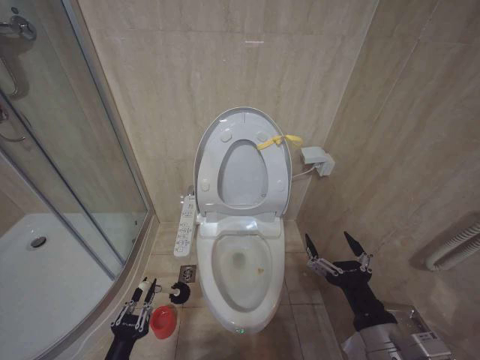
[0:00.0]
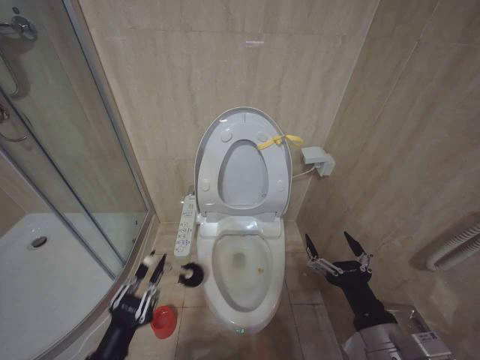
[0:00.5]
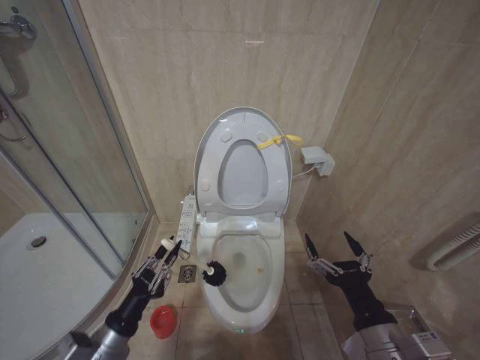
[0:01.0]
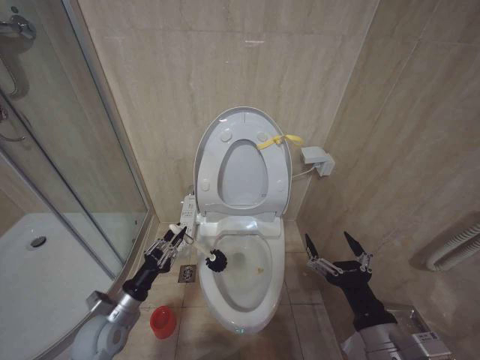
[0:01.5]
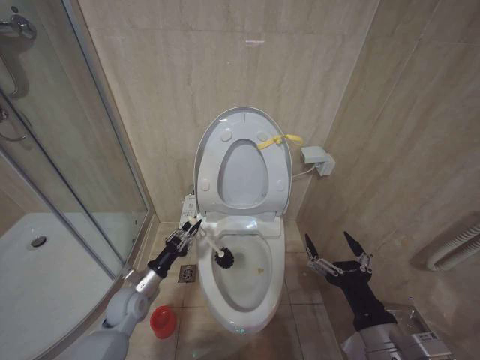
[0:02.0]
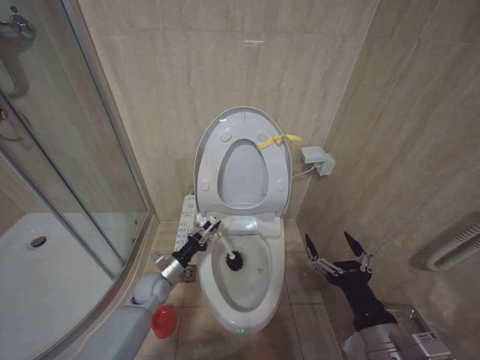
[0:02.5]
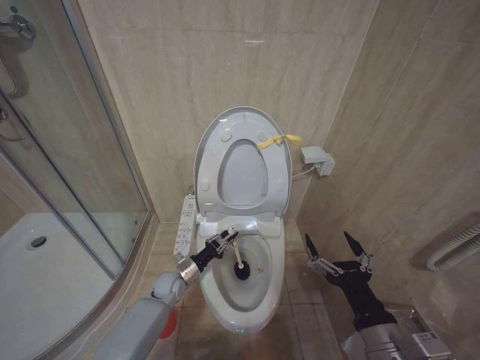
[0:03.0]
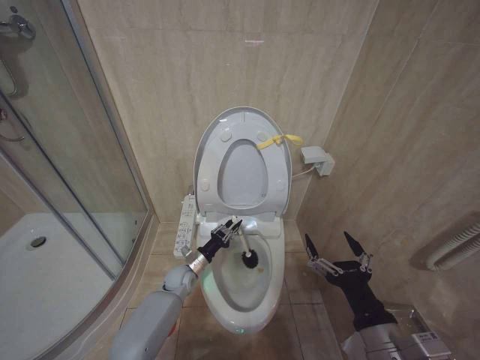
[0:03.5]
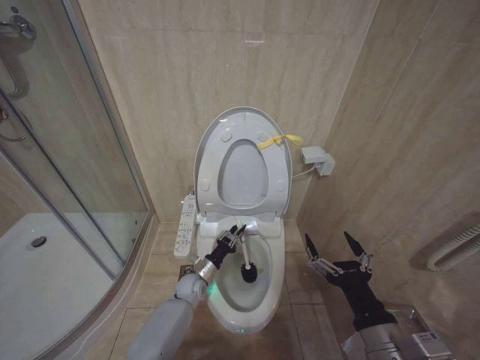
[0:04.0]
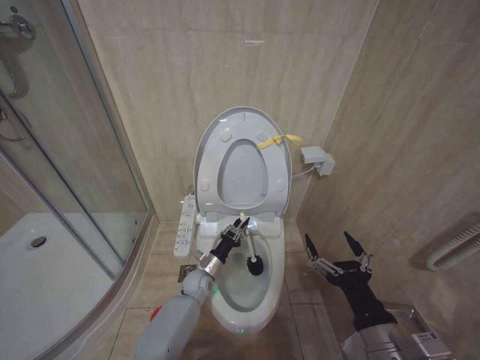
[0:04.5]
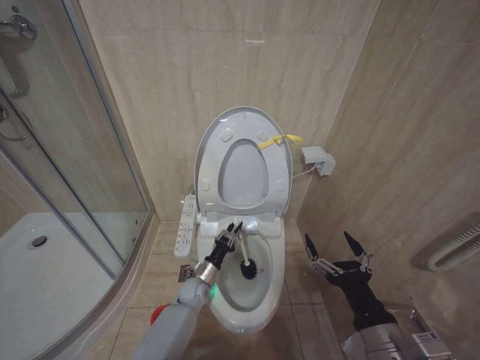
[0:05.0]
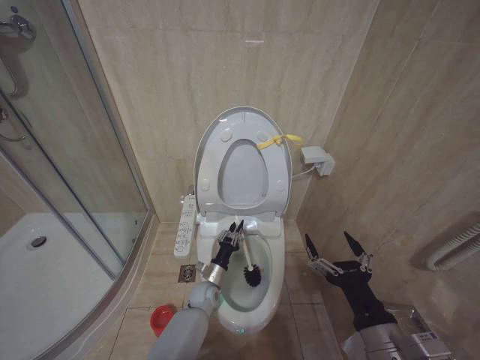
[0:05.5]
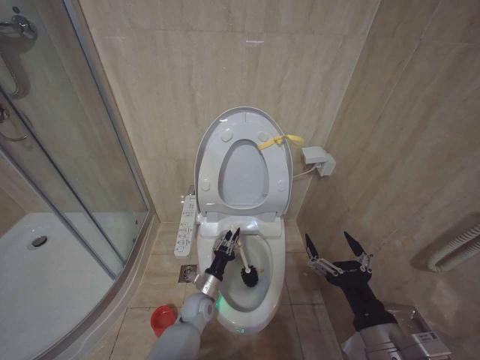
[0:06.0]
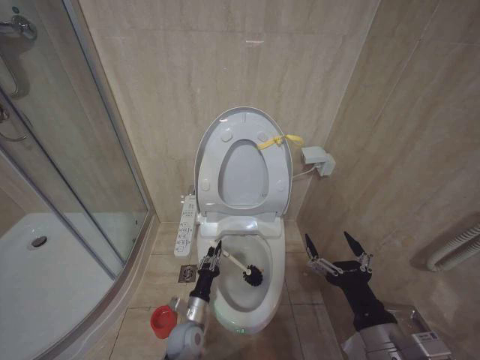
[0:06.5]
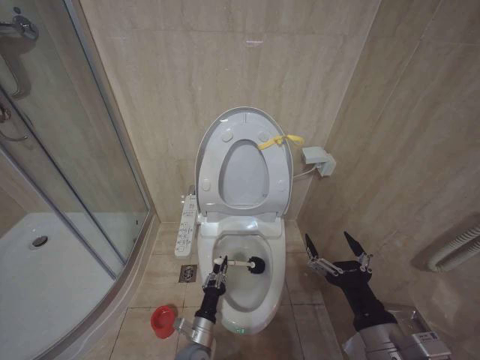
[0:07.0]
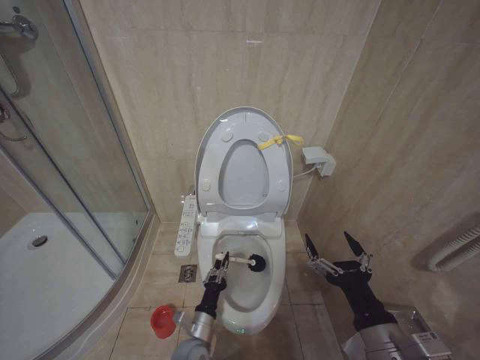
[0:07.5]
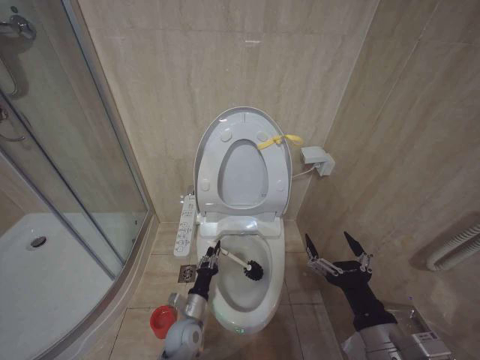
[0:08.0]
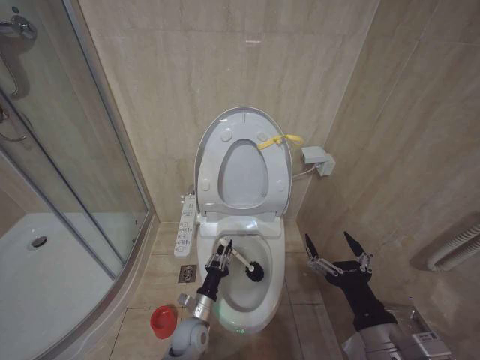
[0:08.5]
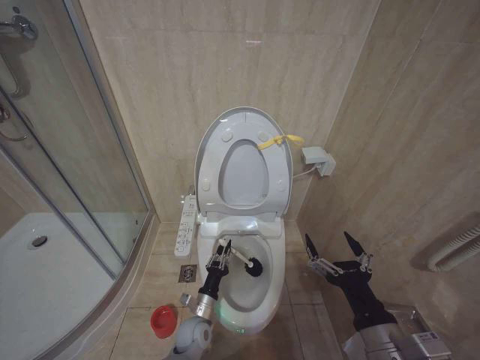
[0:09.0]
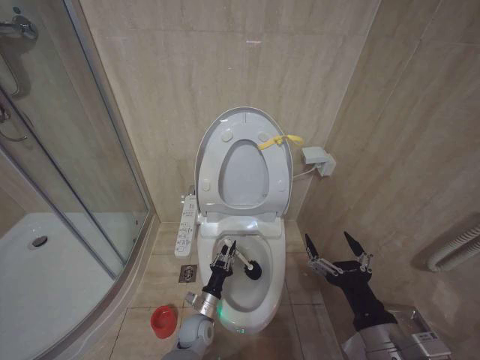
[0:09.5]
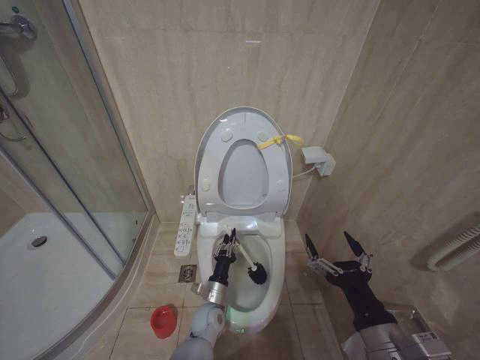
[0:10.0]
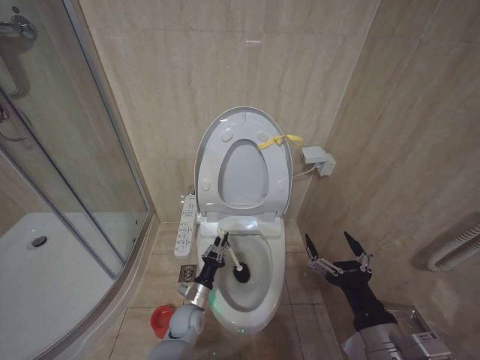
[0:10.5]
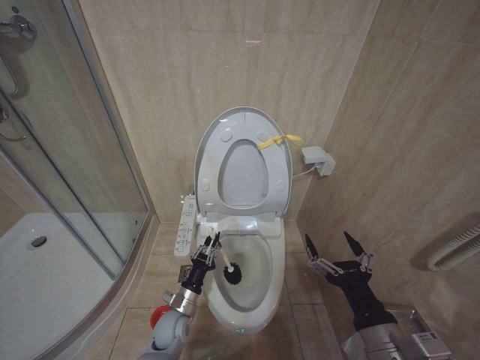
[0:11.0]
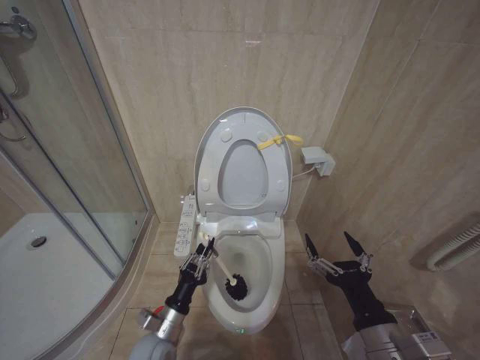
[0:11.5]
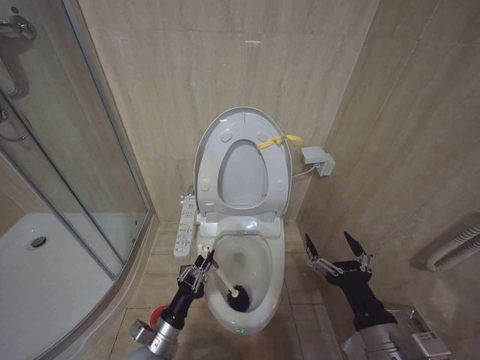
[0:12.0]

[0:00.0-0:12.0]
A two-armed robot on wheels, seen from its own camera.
Task of the whole recording: Open the toilet lid, clean the toilet bowl with a toilet brush, close the toilet lid, and flush.
0:00.0 to 0:02.0: The left gripper heads forward, covering about 20 cm.
0:02.0 to 0:04.0: The left gripper moves to the right, forward and downward, about 20 cm.
0:04.0 to 0:06.0: The left gripper moves approximately 5 cm.
0:06.0 to 0:08.0: The left gripper shifts roughly 10 cm backward.
0:08.0 to 0:10.0: The left gripper goes some 5 cm to the right.
0:10.0 to 0:12.0: The left gripper heads to the left, backward and upward, covering some 20 cm.

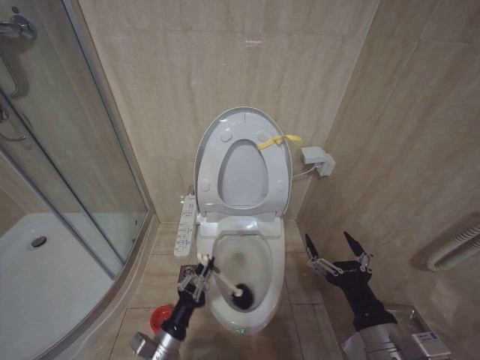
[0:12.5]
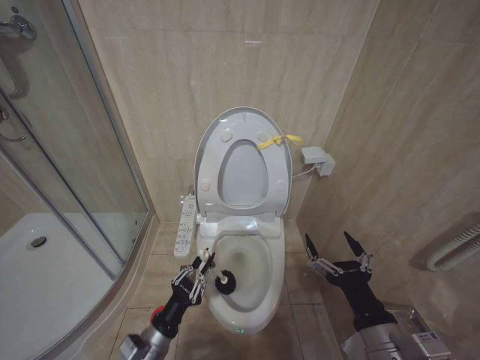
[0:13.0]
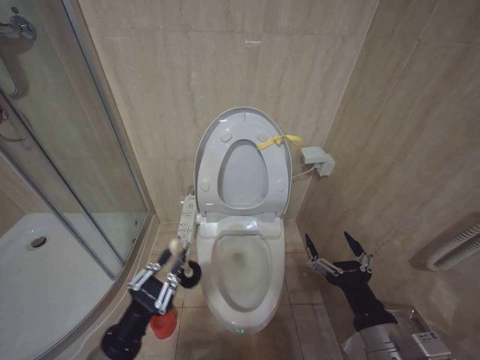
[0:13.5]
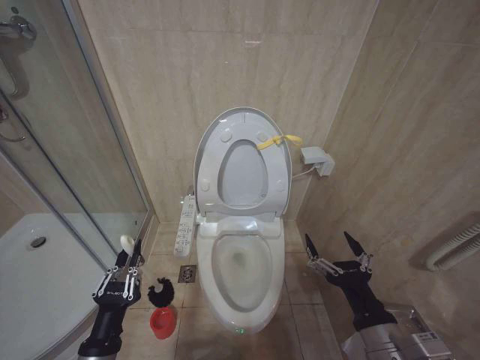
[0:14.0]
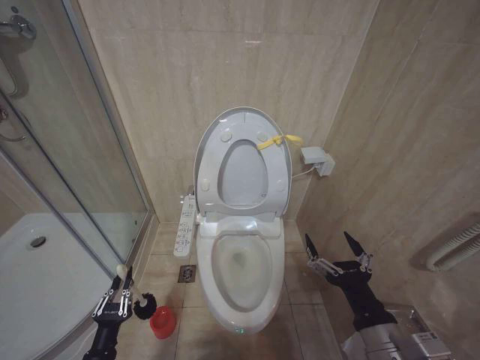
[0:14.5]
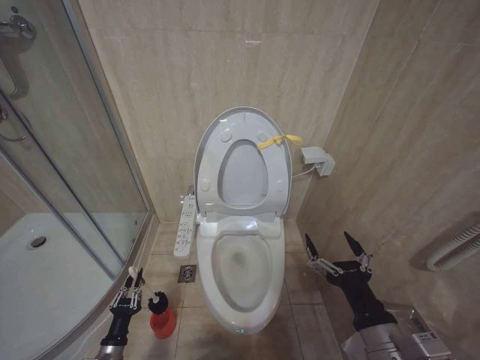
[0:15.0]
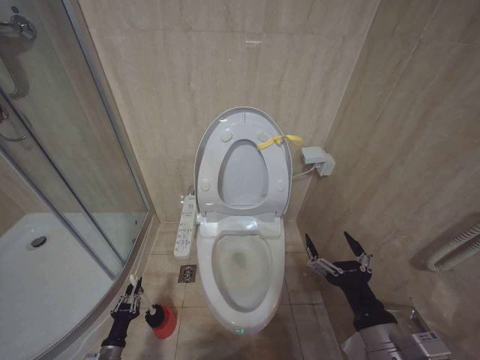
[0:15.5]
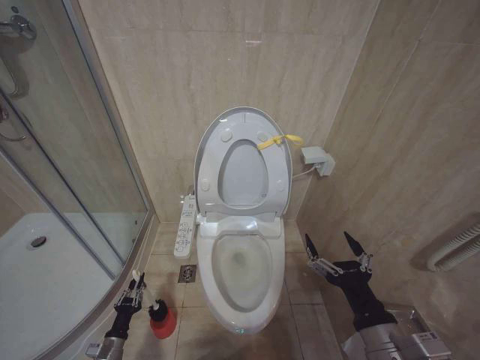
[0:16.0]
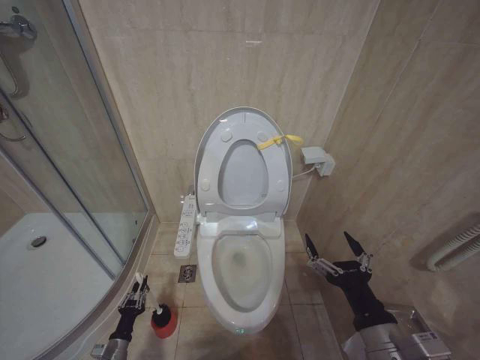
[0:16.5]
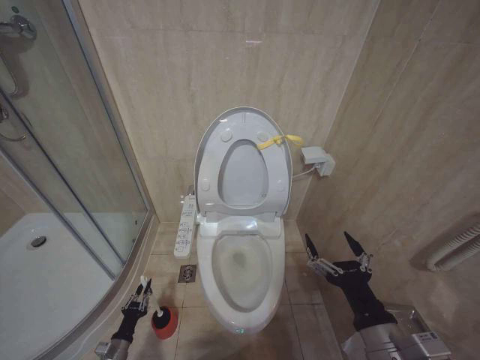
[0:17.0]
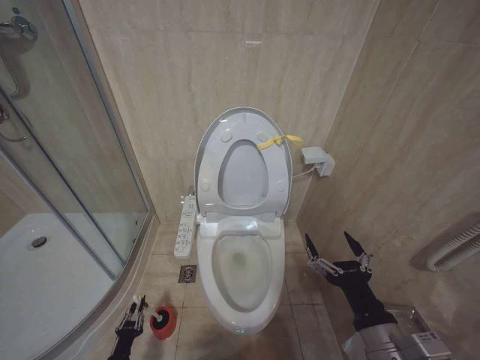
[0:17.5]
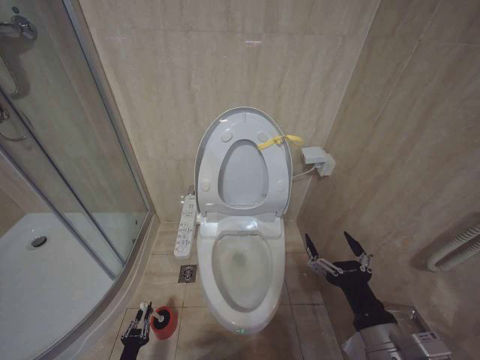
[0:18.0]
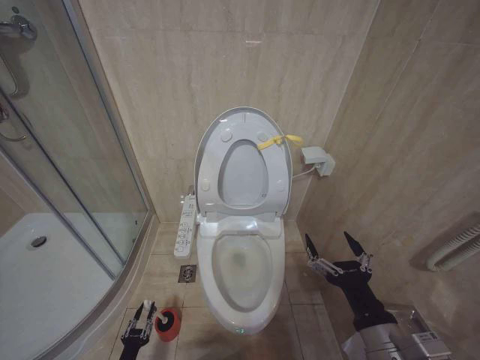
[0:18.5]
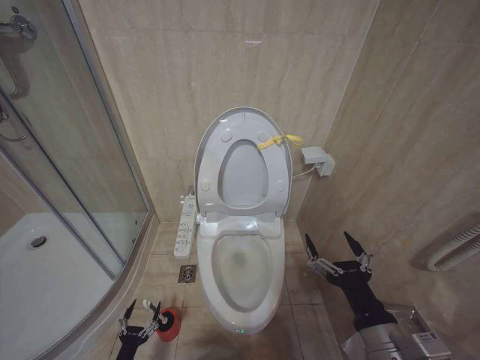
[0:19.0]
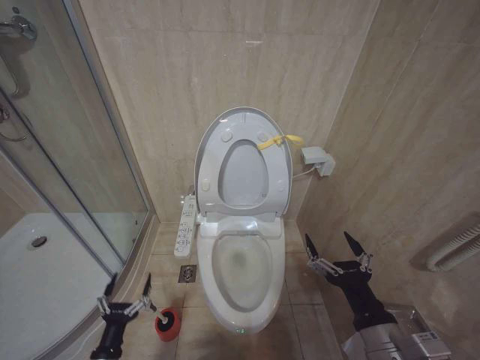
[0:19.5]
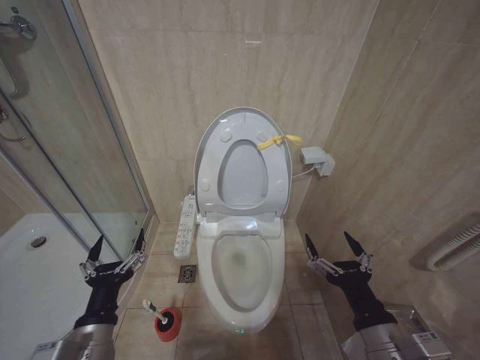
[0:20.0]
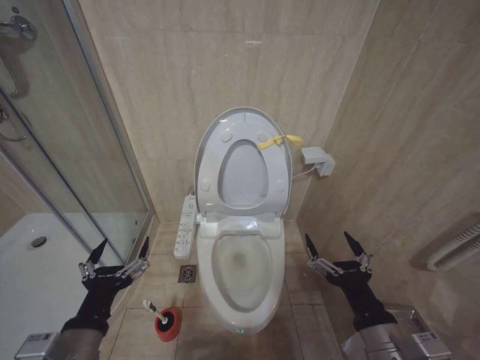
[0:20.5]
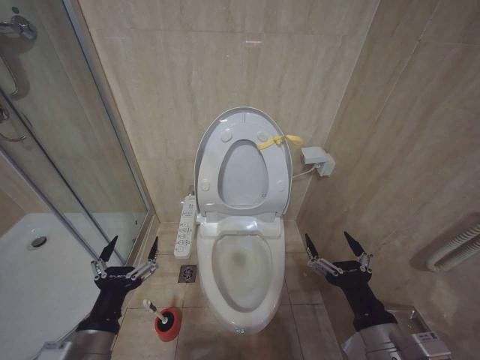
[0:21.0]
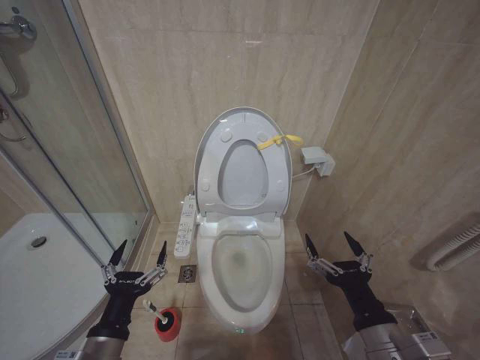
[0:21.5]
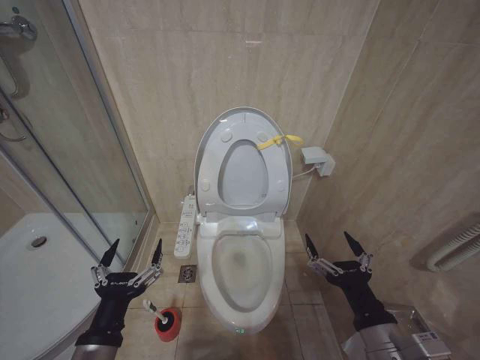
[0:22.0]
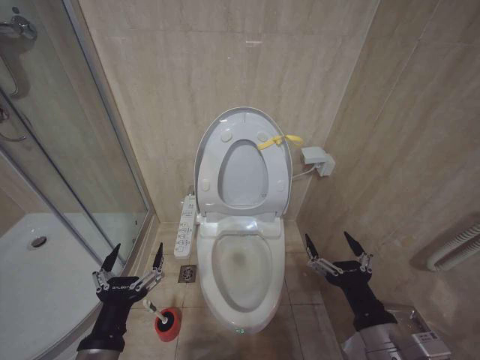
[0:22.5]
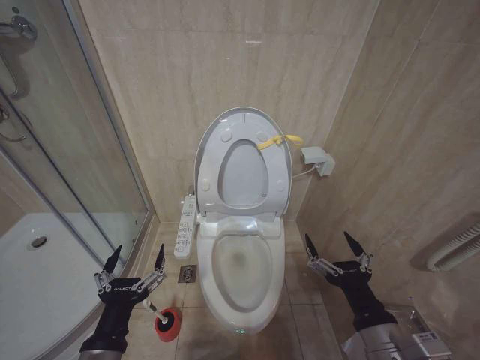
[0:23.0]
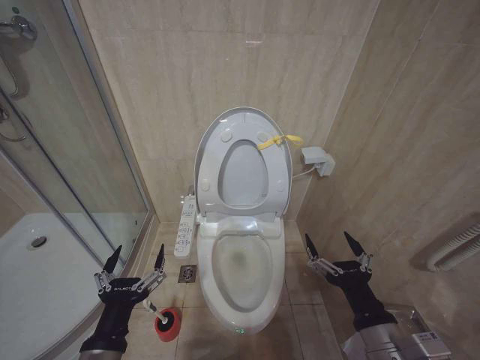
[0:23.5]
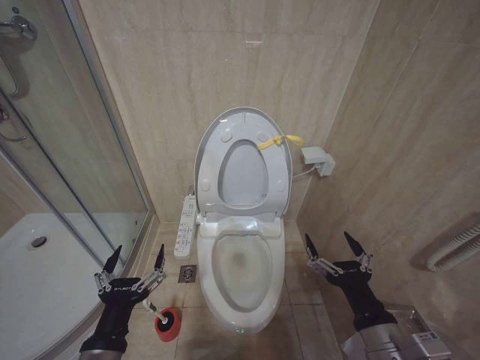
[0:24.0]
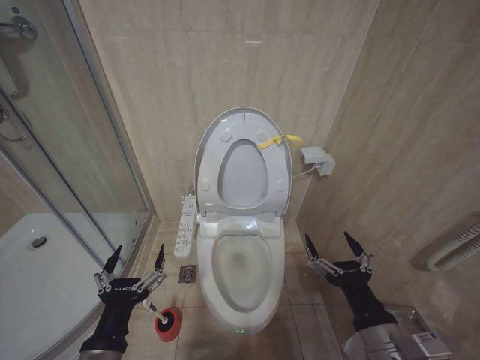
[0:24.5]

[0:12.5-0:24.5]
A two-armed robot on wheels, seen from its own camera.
Task of the whole recording: Open the toilet lid, clean the toilet bowl with a toilet brush, close the toilet lid, and flush.
0:12.5 to 0:14.5: The left gripper travels to the left by some 15 cm, and reaches approximately 10 cm upward, then returns.
0:14.5 to 0:16.5: The left gripper shifts about 20 cm downward and forward.
0:16.5 to 0:18.5: The left gripper moves backward, roughly 5 cm.
0:18.5 to 0:20.5: The left gripper goes roughly 40 cm upward, and opens.
0:22.5 to 0:24.5: The two grippers keep their place.

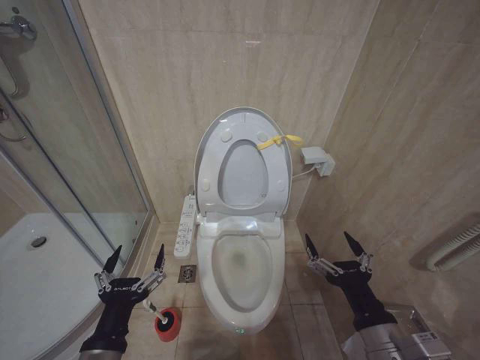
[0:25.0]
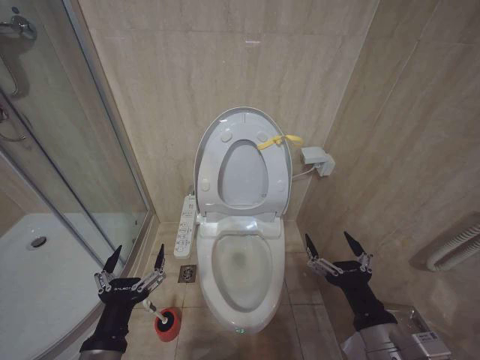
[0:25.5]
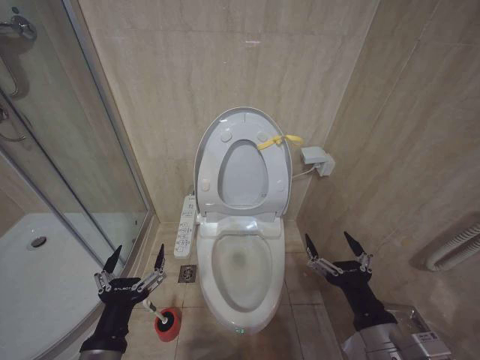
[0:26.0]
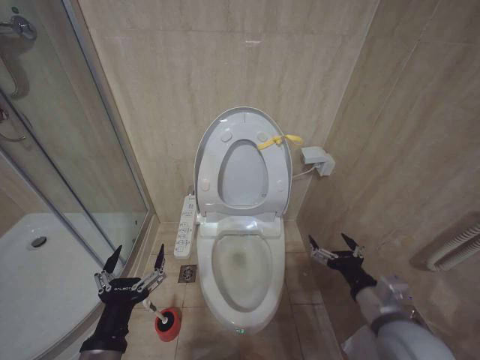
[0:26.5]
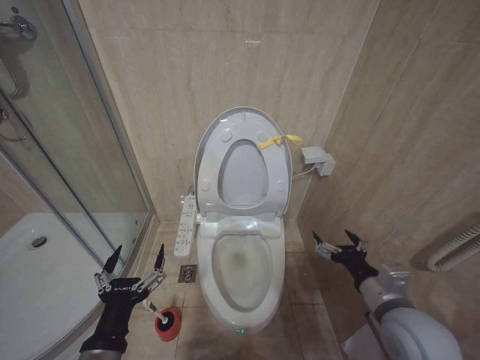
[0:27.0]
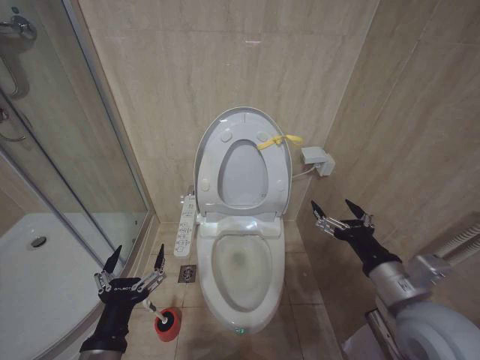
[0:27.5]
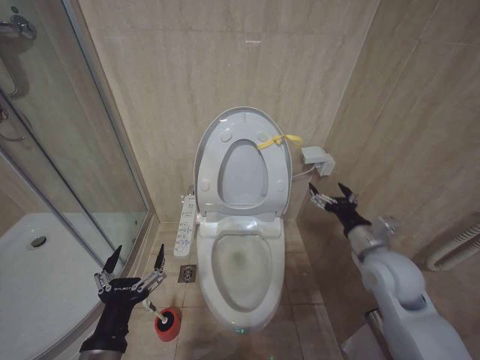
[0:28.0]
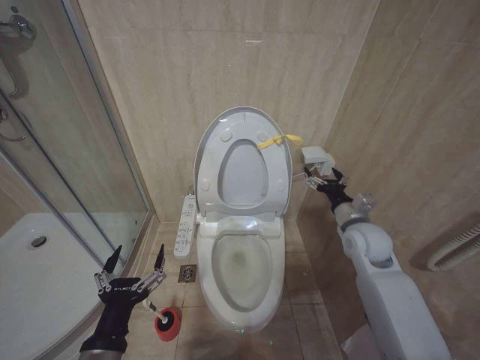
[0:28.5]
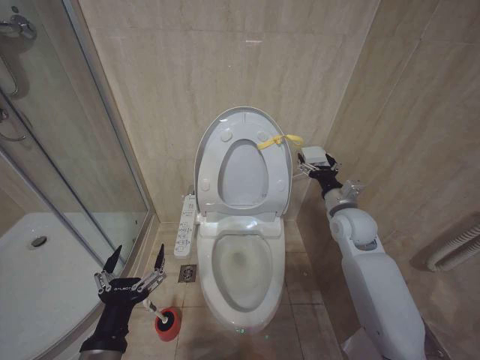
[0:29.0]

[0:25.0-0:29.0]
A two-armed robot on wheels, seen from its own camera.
Task of the whole recording: Open the toilet lid, clean the toilet bowl with a toilet brush, close the toilet lid, and flush.
0:25.0 to 0:27.0: The right gripper is displaced forward and to the right by some 10 cm.
0:27.0 to 0:29.0: The right gripper is displaced forward by about 20 cm.
